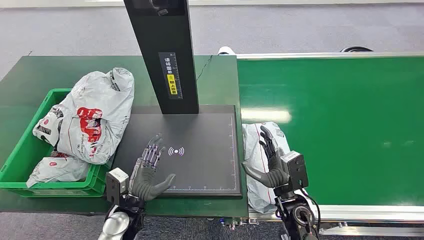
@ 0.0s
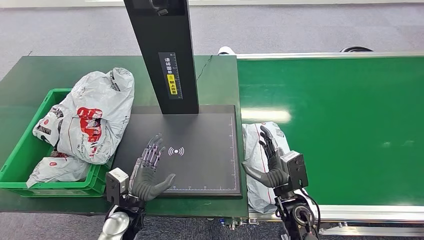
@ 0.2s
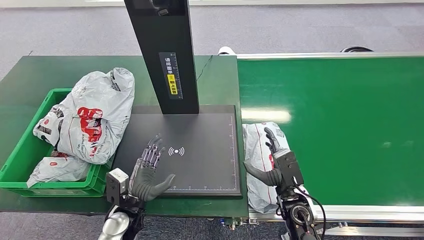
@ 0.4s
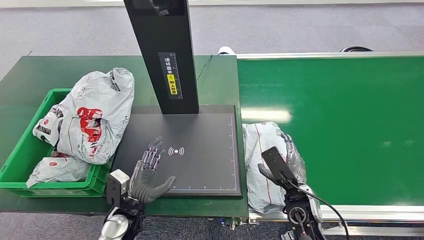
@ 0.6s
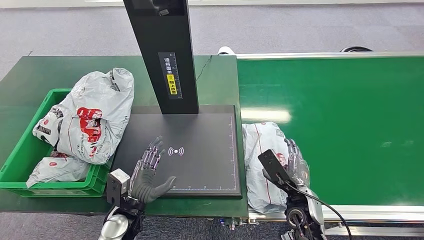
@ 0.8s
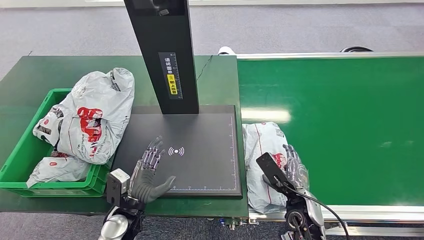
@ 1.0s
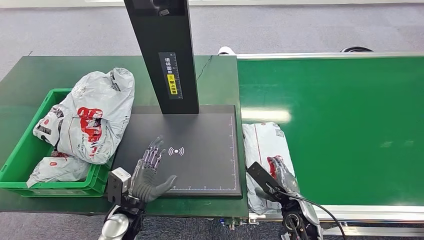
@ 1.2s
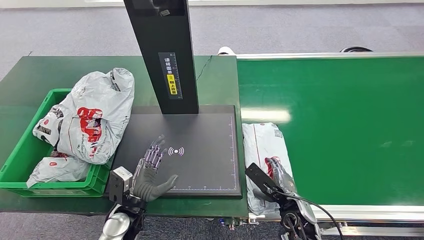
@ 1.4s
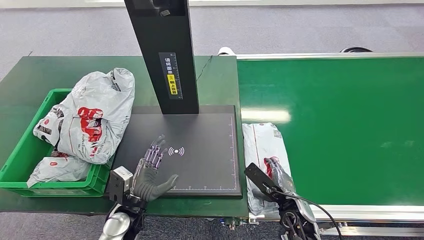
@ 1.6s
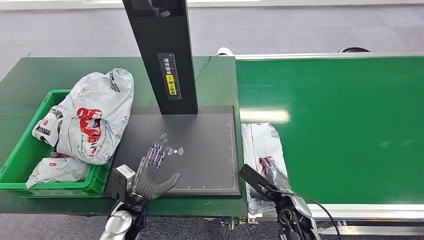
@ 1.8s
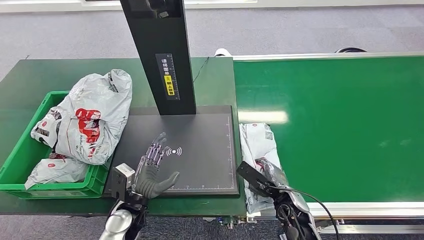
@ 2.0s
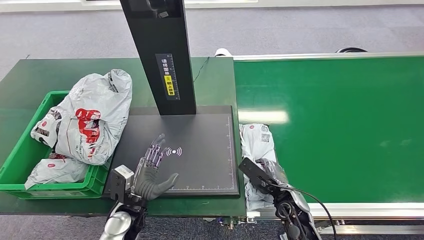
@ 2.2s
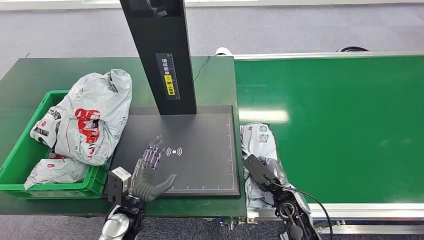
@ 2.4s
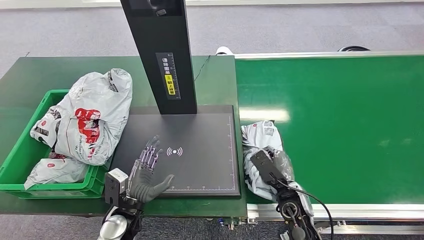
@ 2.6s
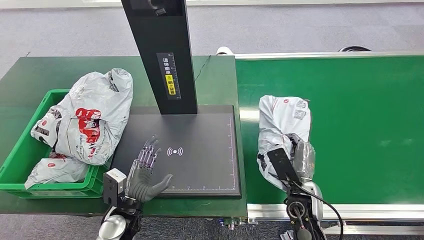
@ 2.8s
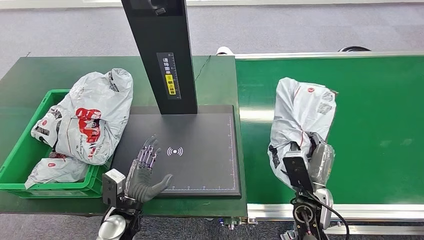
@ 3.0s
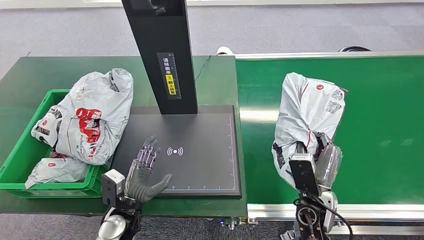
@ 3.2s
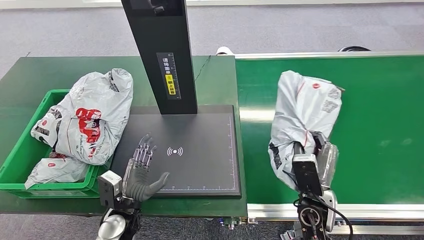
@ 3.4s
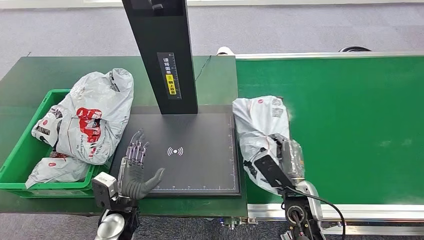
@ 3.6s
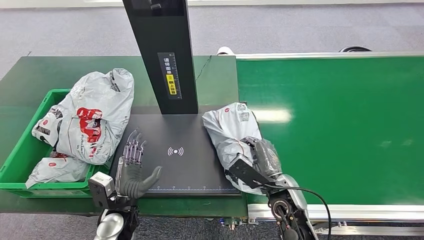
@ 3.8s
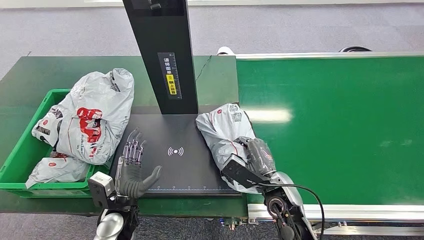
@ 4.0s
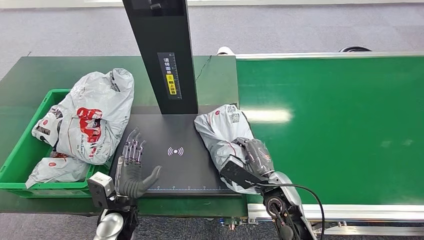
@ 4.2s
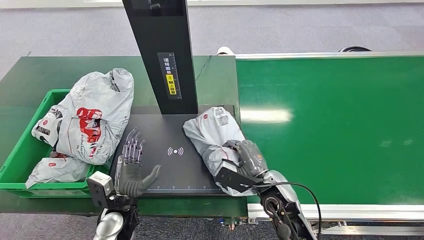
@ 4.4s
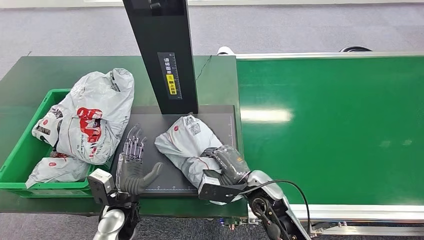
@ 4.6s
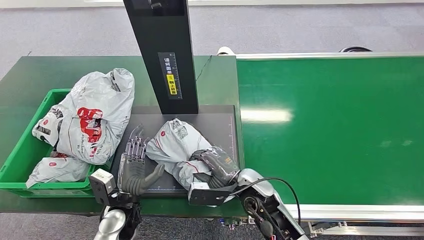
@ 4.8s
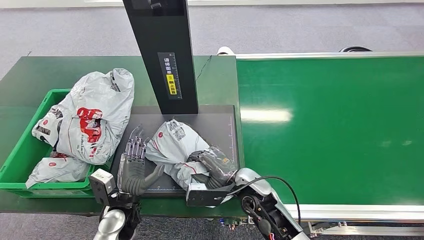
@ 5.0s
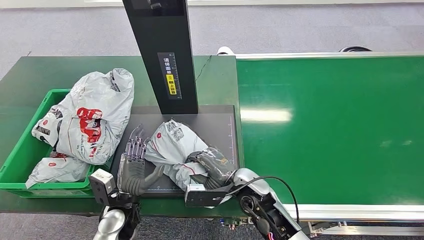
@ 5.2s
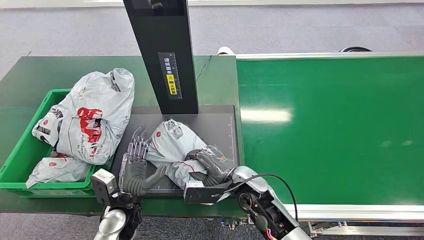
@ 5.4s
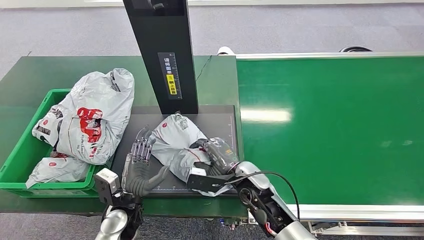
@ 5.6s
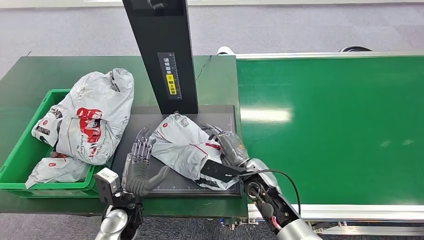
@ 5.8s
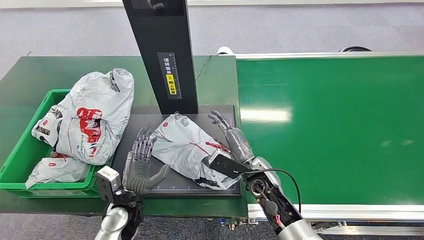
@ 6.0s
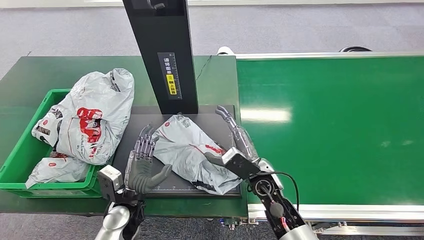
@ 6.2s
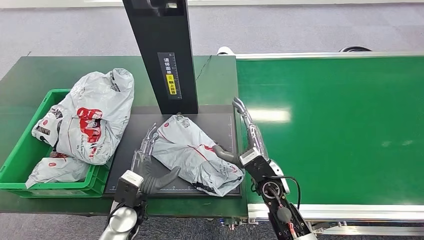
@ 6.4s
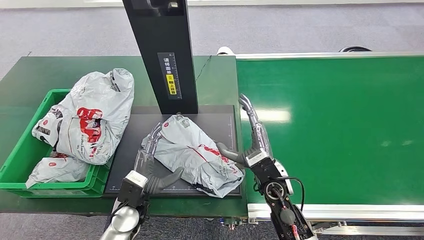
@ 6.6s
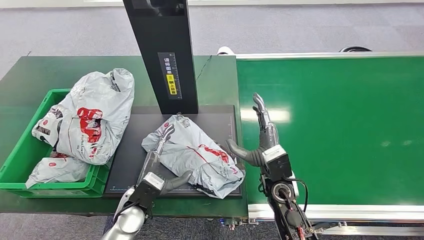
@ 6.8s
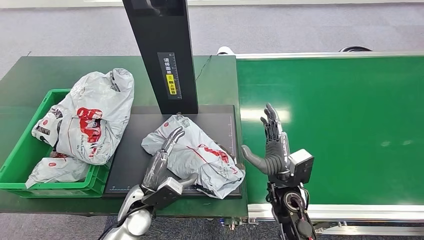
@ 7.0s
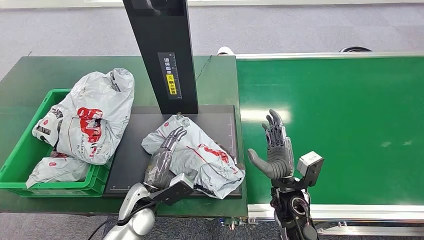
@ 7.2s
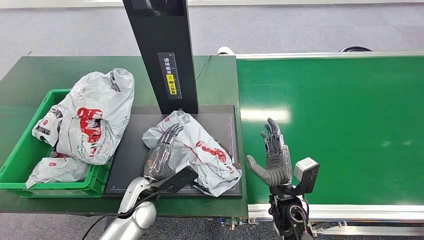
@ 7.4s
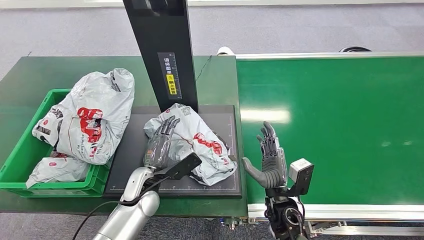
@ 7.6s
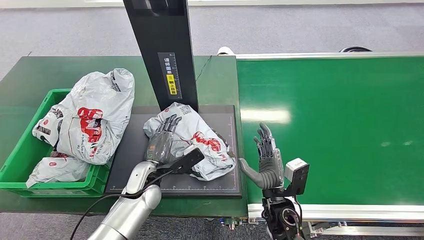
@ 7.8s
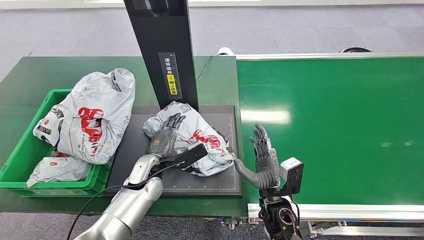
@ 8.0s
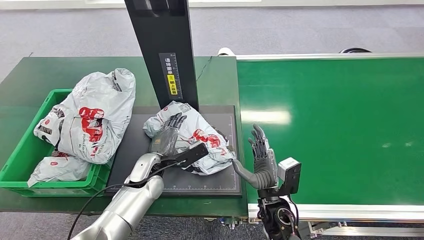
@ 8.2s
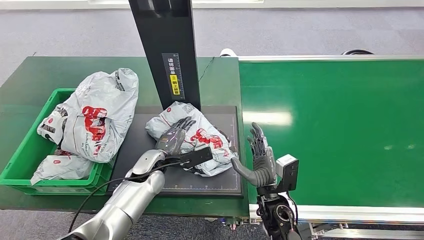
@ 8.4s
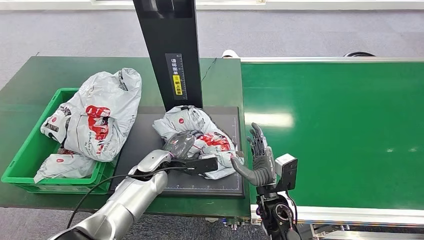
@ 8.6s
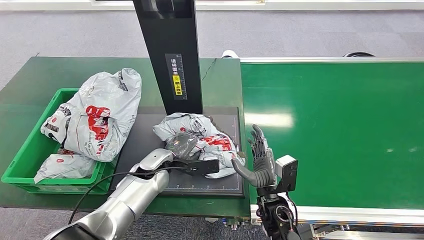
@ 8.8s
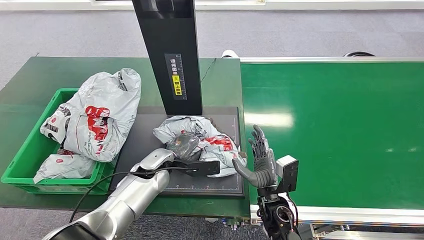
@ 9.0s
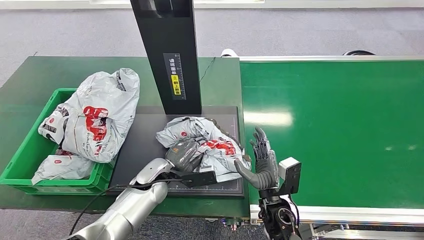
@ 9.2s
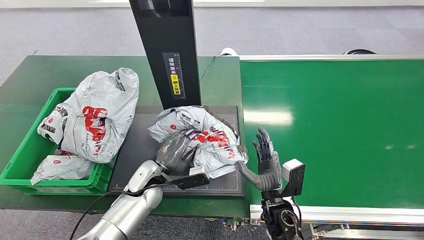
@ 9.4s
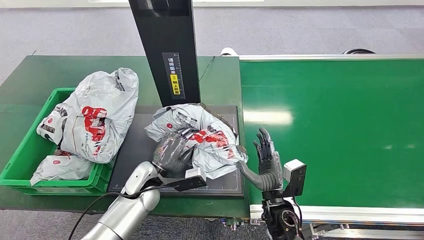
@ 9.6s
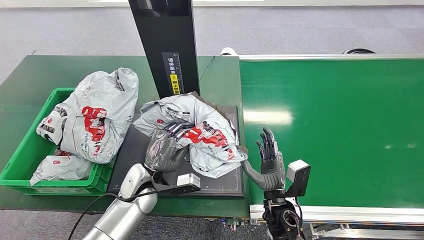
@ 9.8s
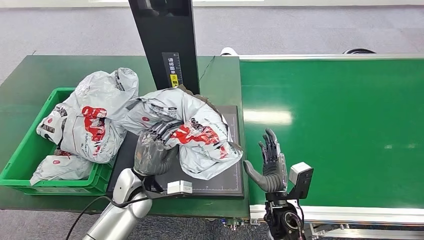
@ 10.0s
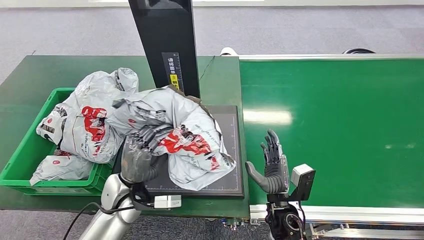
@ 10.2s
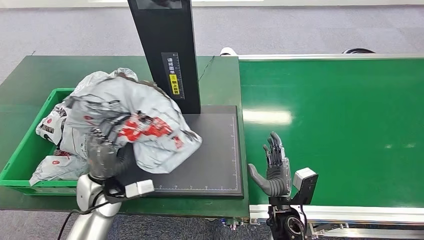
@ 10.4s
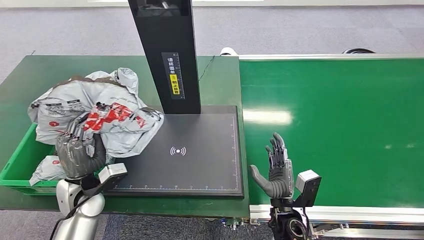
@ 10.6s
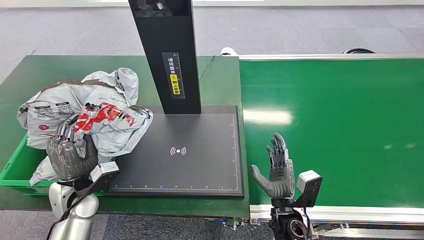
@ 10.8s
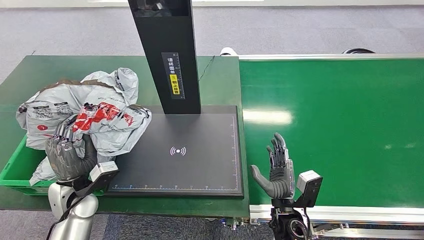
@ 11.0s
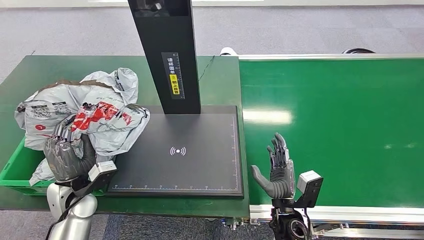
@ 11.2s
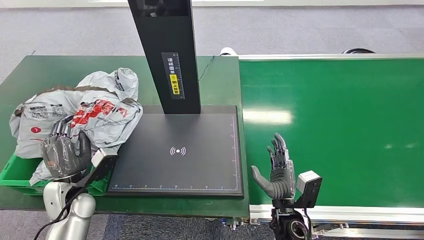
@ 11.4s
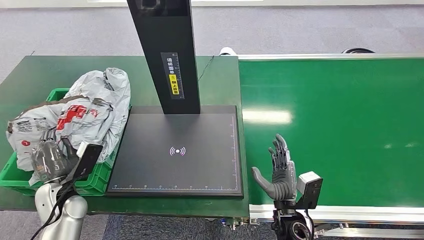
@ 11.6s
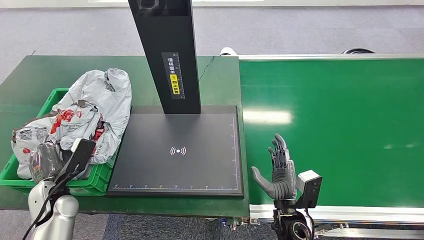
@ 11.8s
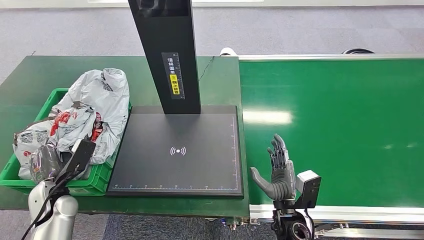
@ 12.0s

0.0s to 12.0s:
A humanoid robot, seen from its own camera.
Step, 0.0s to 3.2s: Pick up the package from the conveyor belt.
Step, 3.4s to 6.6s: Place the package onto the inbound machine.
Step, 6.8s to 9.8s: Pick up the package from the inbound machine.
1.6s to 3.0s: The right hand heads upward, covering roughly 5 cm.
3.0s to 4.4s: The right hand heads to the left, covering some 5 cm.
6.0s to 7.6s: The right hand goes approximately 5 cm backward. The left hand shifts approximately 5 cm forward.

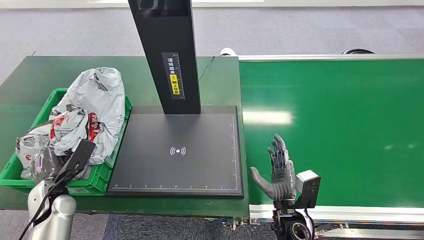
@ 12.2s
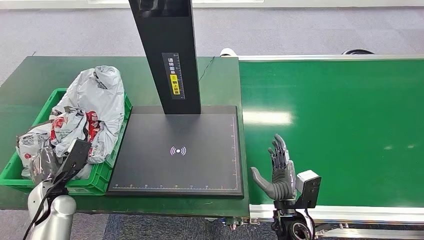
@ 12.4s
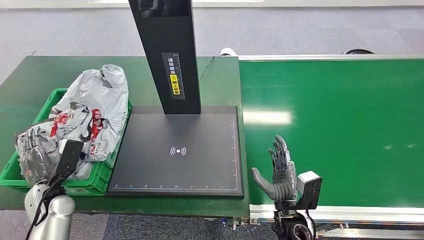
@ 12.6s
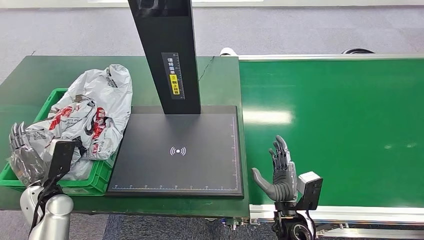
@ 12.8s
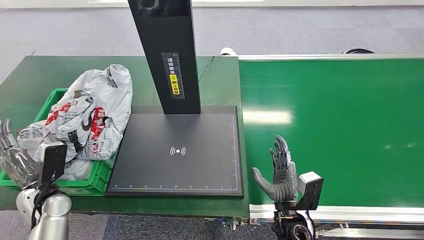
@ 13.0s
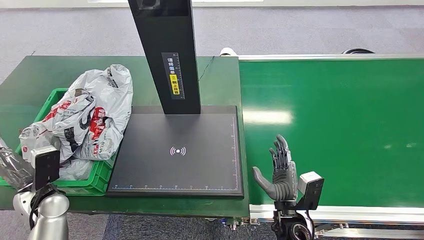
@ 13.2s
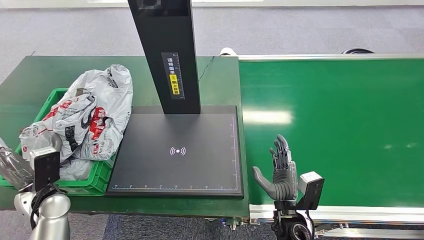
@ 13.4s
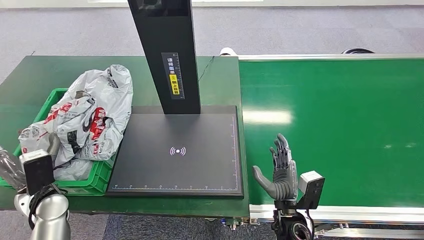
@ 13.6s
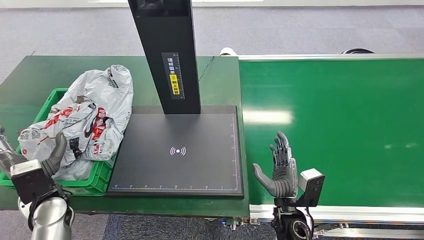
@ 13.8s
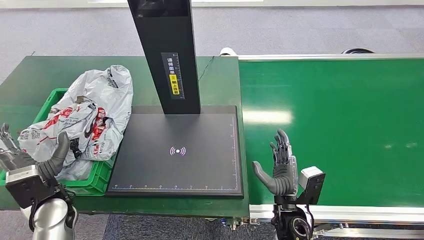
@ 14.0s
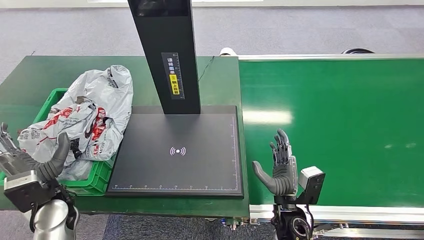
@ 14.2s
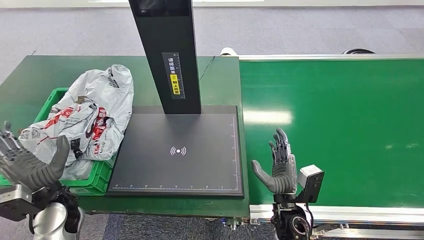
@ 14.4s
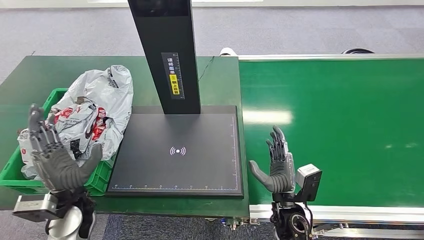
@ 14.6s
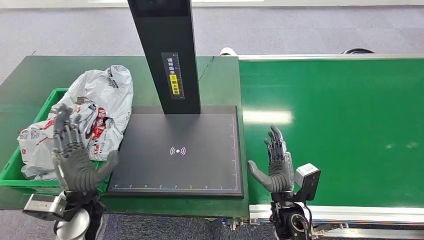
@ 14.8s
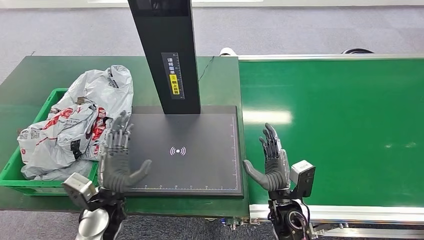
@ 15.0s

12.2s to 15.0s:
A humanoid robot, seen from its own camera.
Step, 12.2s to 15.0s: Place the package into the parcel locker.
13.6s to 15.0s: The left hand goes about 15 cm to the right.

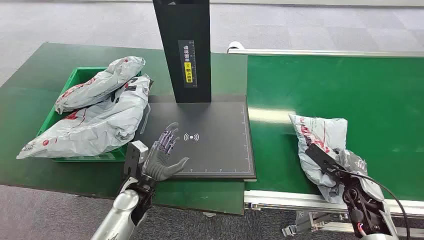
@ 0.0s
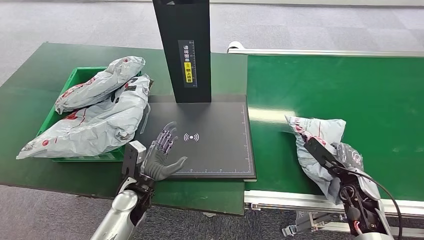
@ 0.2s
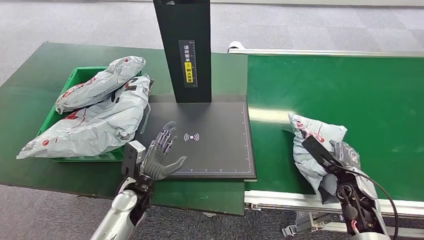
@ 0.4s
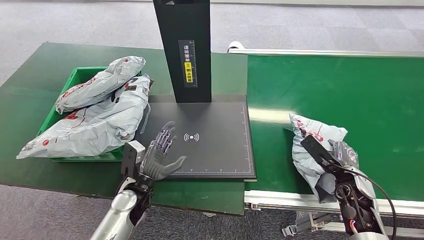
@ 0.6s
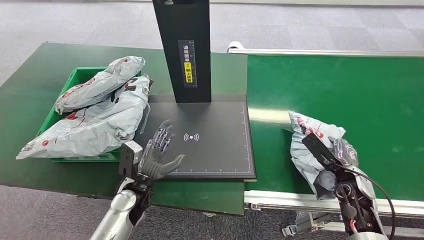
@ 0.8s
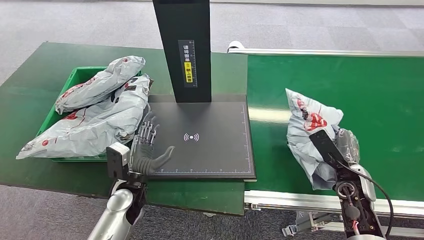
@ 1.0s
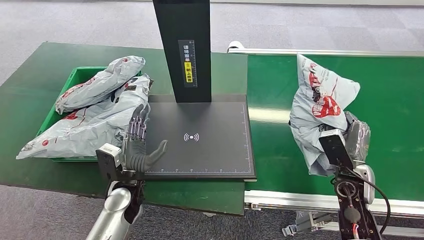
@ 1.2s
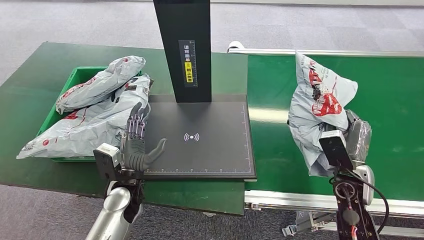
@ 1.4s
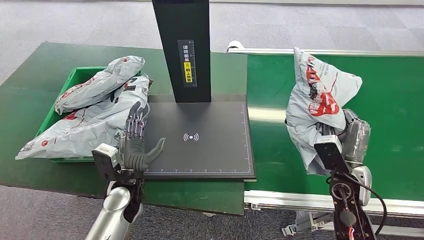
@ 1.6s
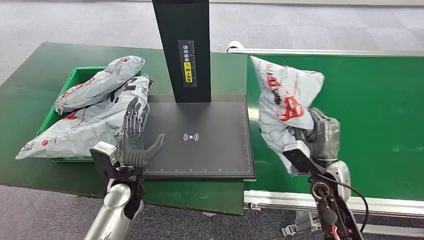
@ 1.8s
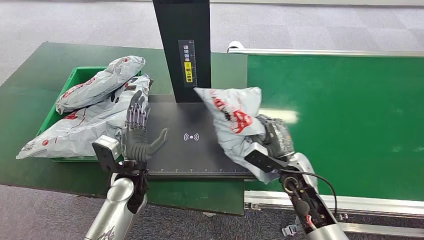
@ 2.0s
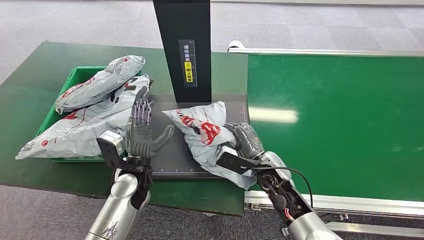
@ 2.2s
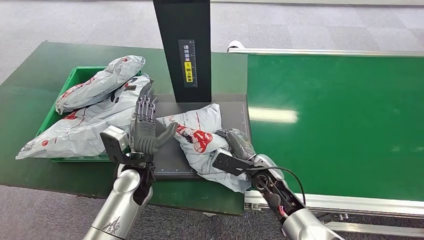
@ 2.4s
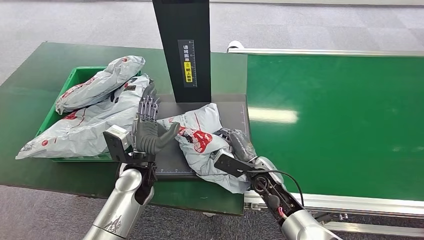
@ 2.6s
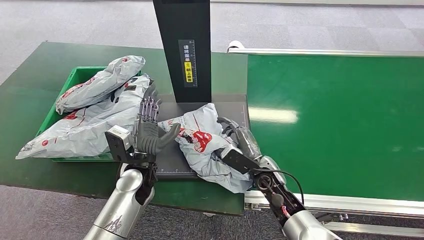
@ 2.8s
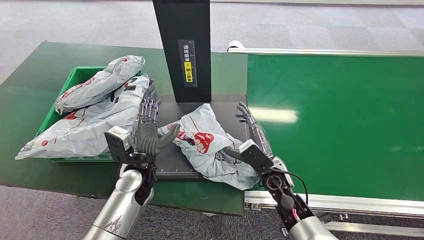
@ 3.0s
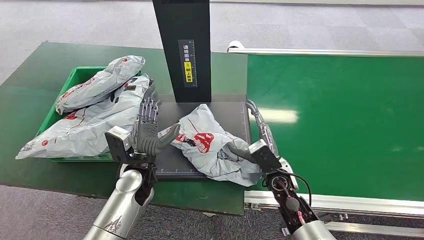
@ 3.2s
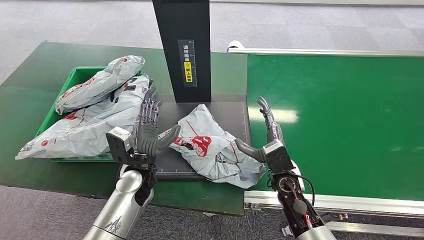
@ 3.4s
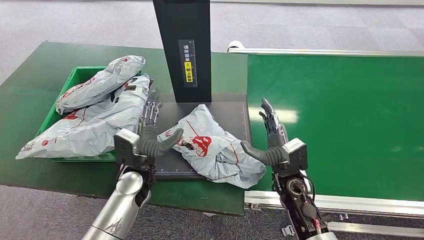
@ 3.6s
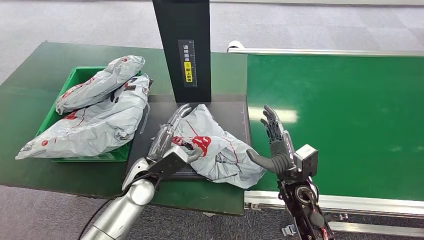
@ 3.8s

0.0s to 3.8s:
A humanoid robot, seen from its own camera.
Step, 0.0s to 1.8s: Pick up the package from the conveyor belt.
2.6s to 3.8s: The right hand heads to the right, covering about 5 cm.
